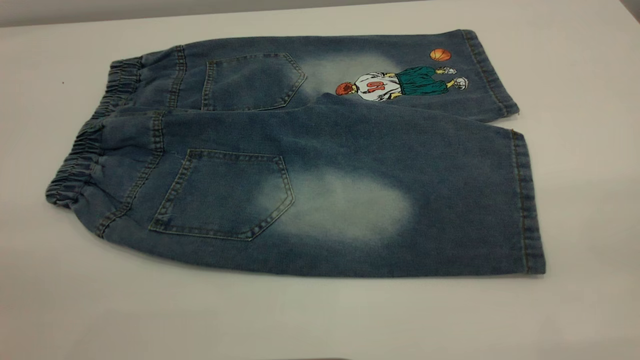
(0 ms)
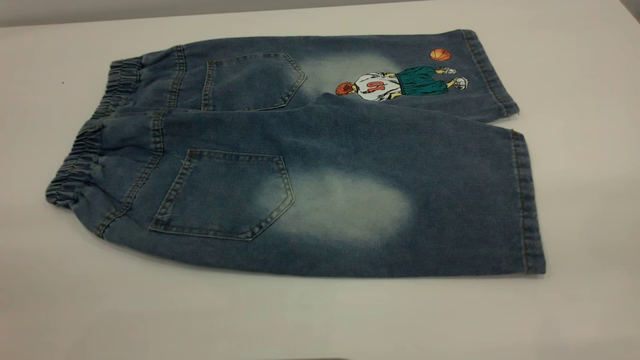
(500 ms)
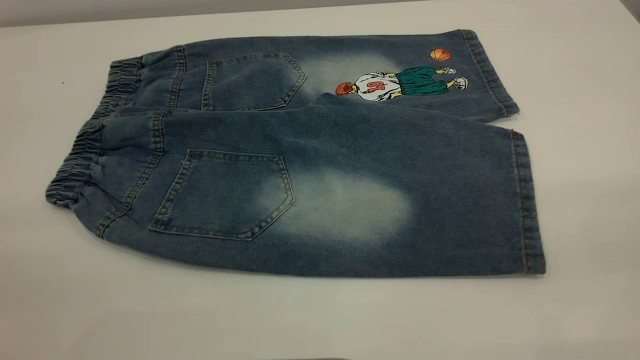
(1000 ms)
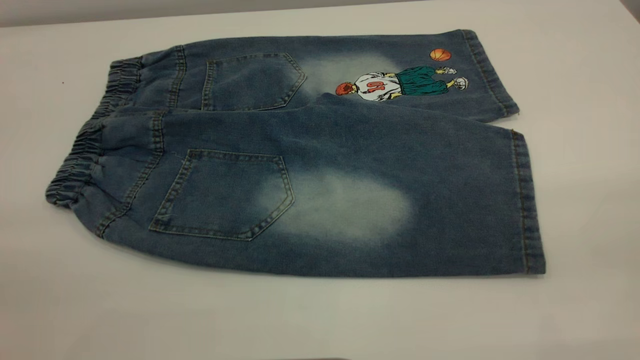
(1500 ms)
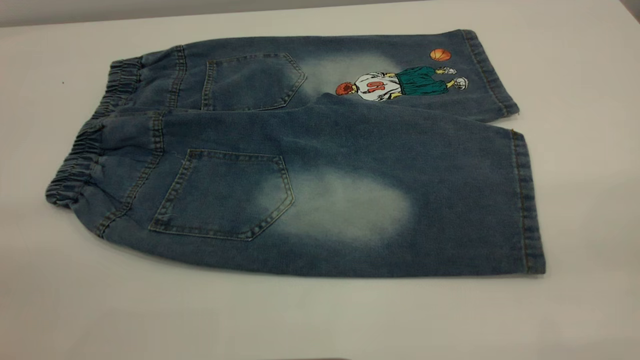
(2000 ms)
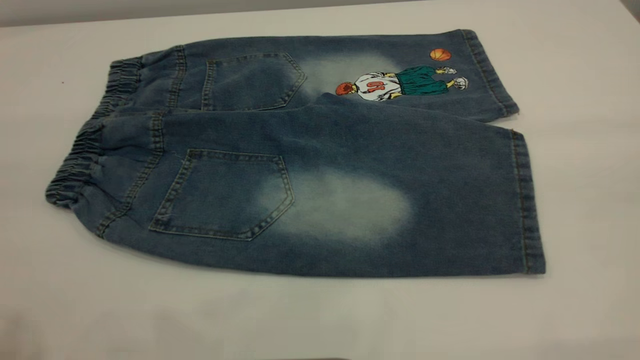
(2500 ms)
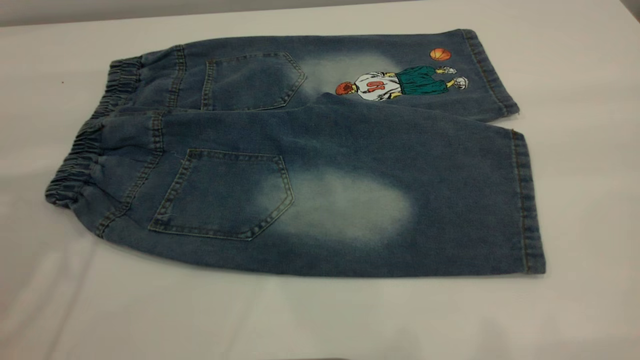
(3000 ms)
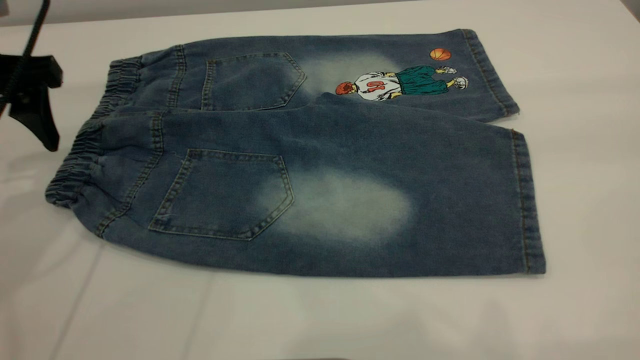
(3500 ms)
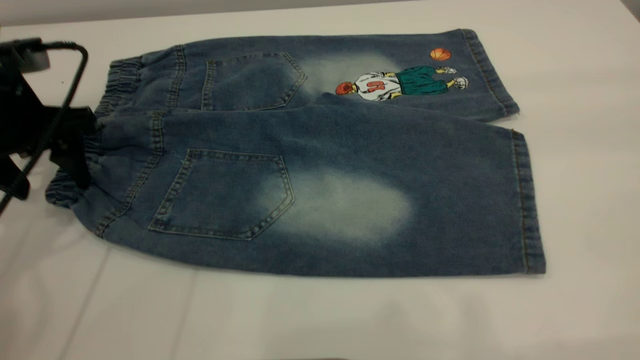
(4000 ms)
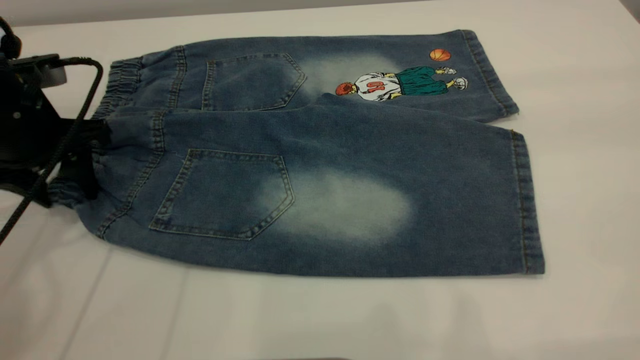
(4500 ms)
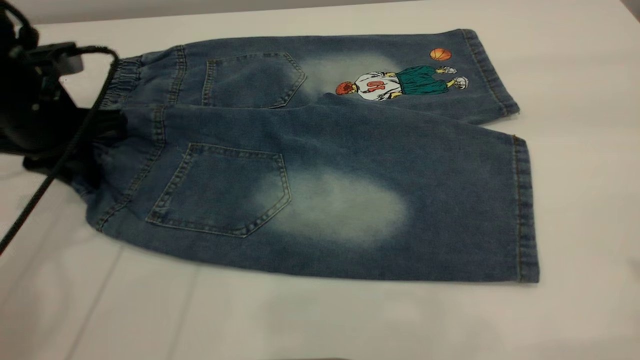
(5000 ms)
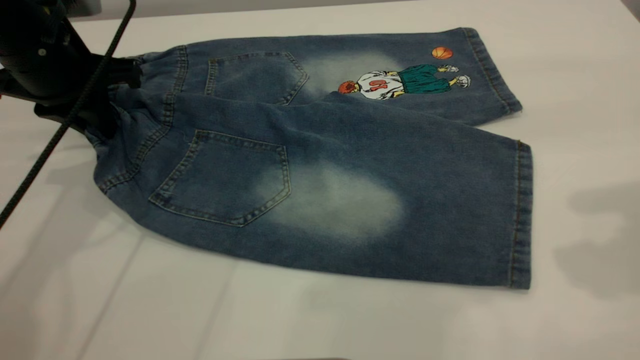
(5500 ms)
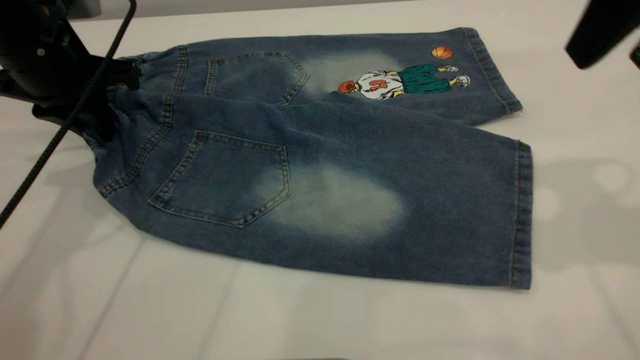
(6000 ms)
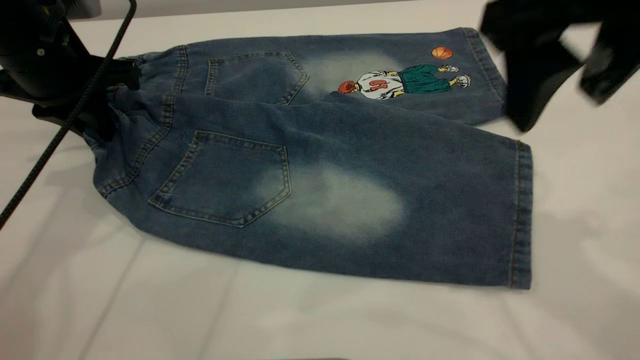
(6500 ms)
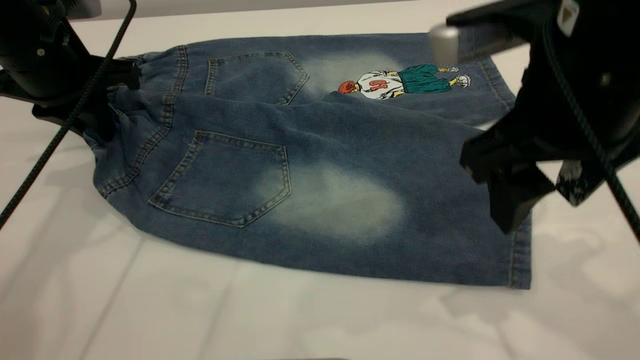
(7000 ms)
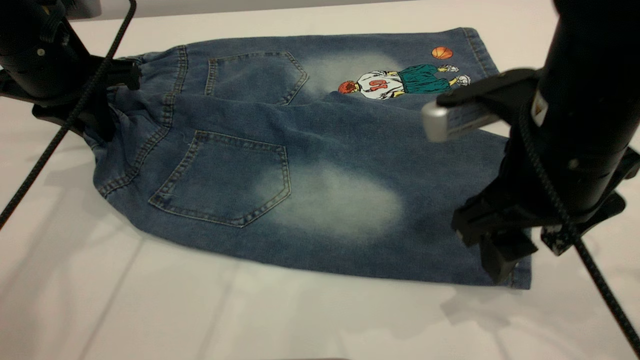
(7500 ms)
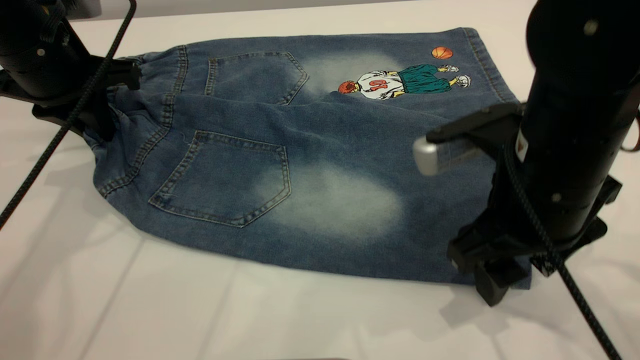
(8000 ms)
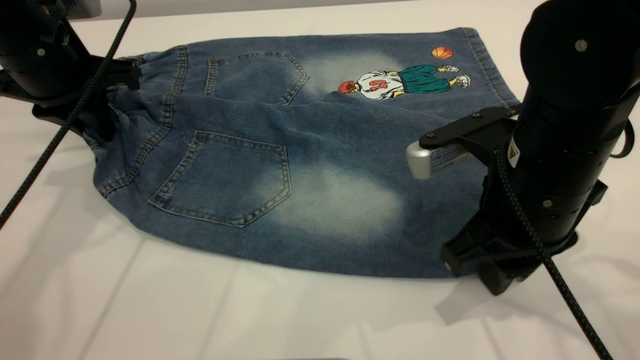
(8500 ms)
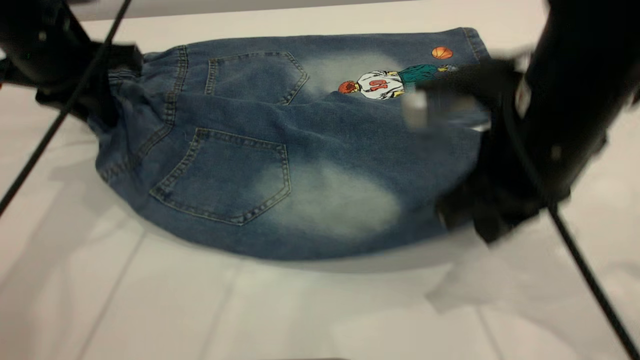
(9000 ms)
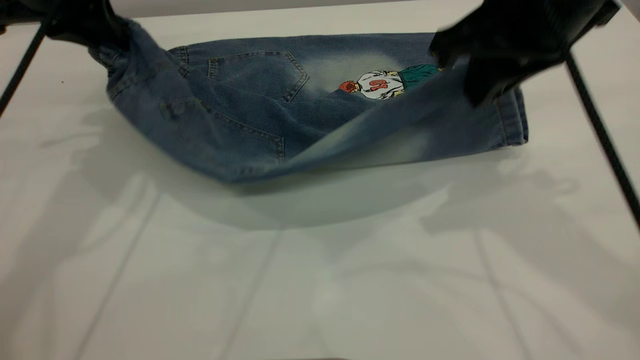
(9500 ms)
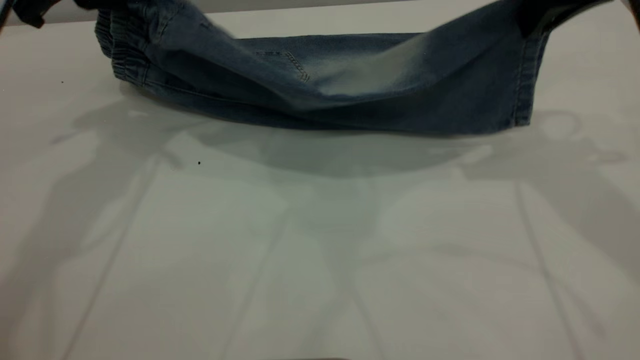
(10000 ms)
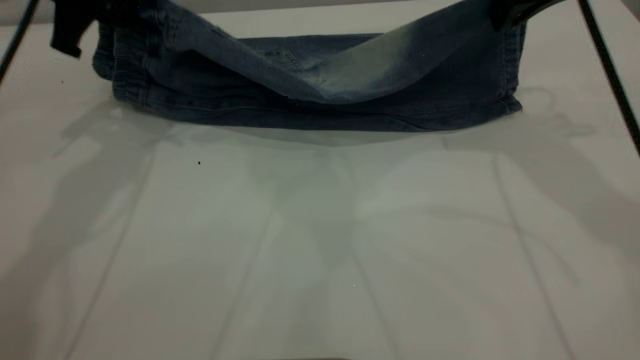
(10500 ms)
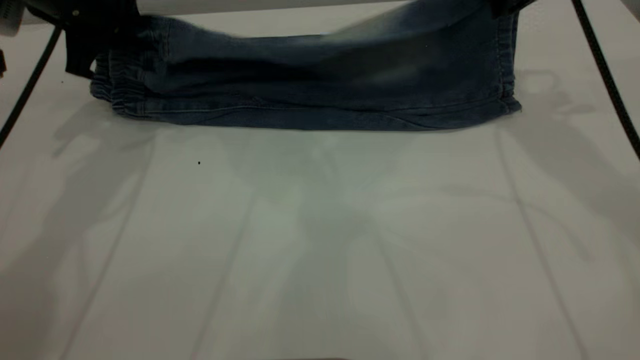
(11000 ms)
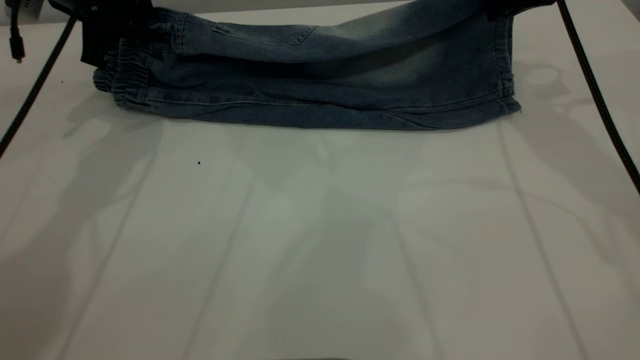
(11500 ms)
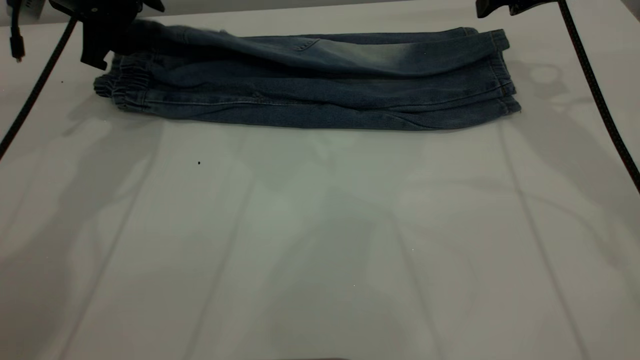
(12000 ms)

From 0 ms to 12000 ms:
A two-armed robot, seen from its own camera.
From 2000 ms to 4000 ms: The left gripper goes approximately 40 cm forward and downward.
From 4000 ms to 6000 ms: The left gripper shifts by about 5 cm, and closes its fingers. The right gripper shifts some 20 cm forward, downward and to the left.
From 6000 ms to 8000 ms: The right gripper heads downward and to the left, covering some 20 cm.
From 8000 ms to 10000 ms: The right gripper heads upward, forward and to the right, covering some 20 cm, and closes, while the left gripper shifts about 10 cm upward.
From 10000 ms to 12000 ms: The left gripper moves downward and forward, about 10 cm, and opens up. Meanwhile the right gripper shifts roughly 10 cm forward and downward, and opens up.

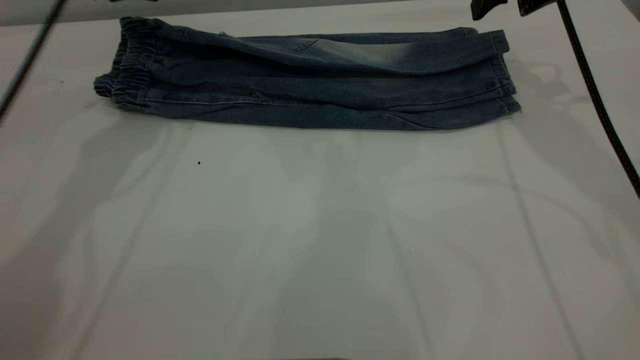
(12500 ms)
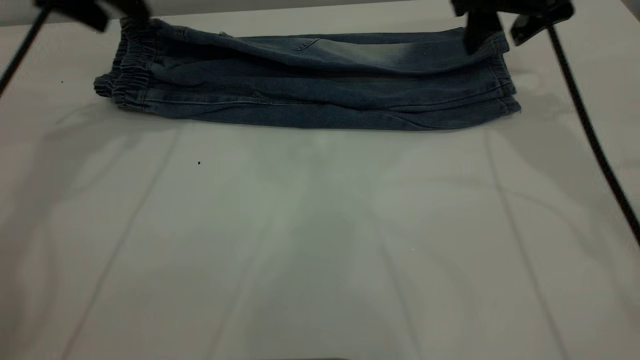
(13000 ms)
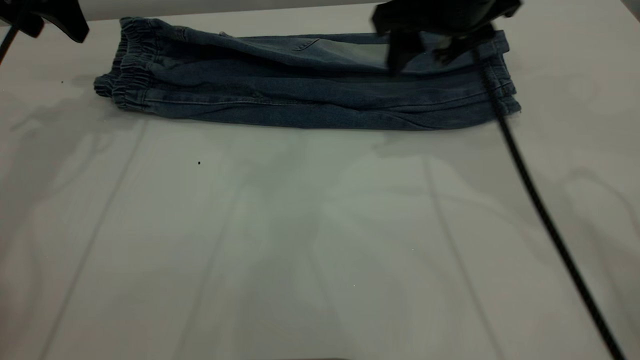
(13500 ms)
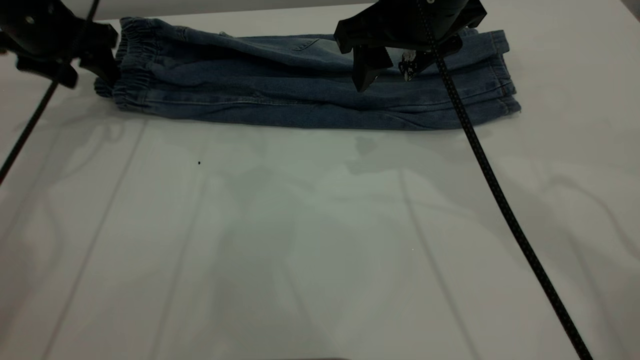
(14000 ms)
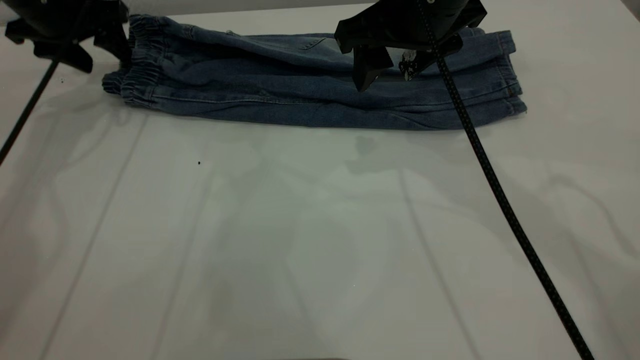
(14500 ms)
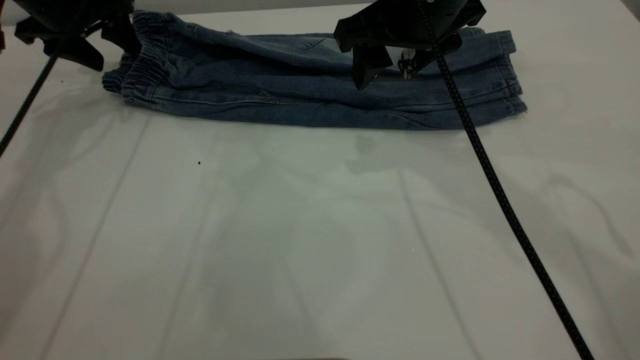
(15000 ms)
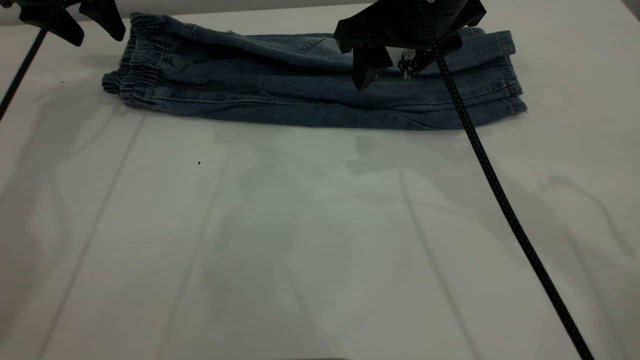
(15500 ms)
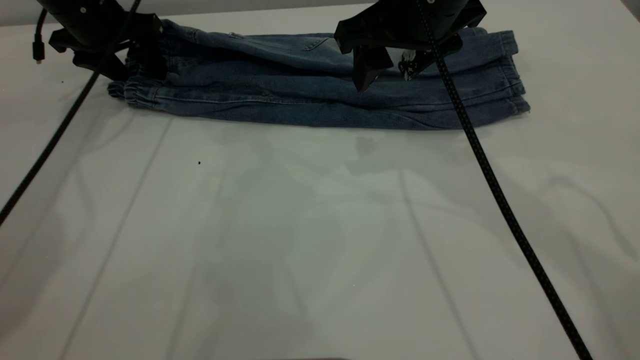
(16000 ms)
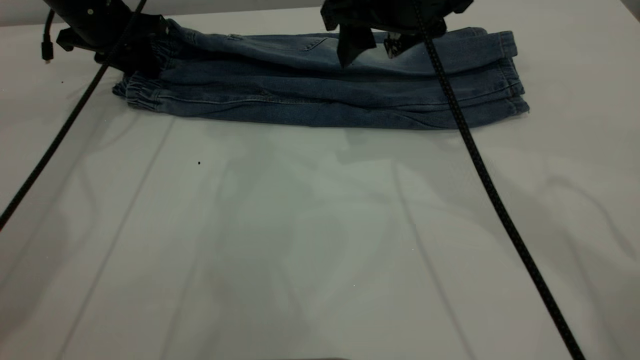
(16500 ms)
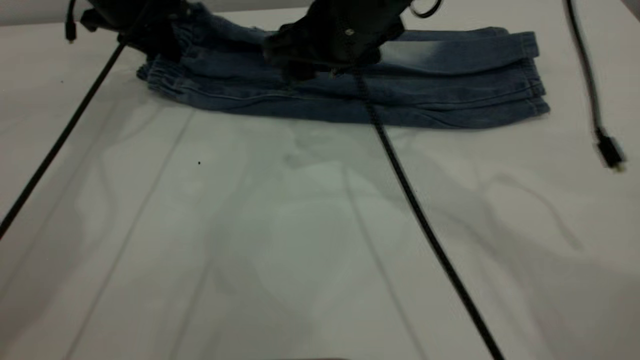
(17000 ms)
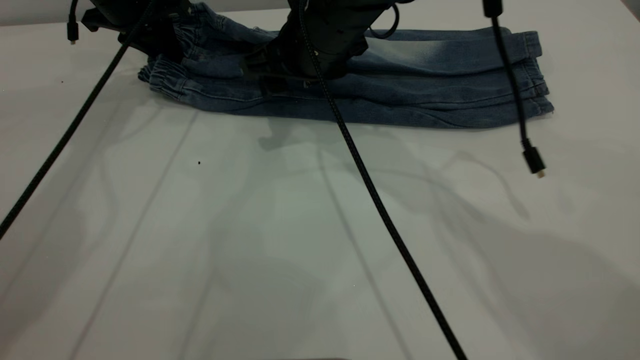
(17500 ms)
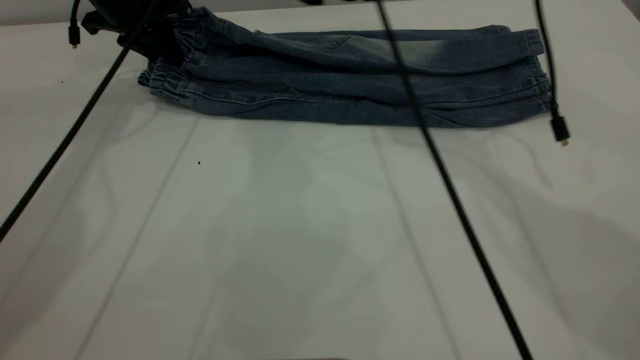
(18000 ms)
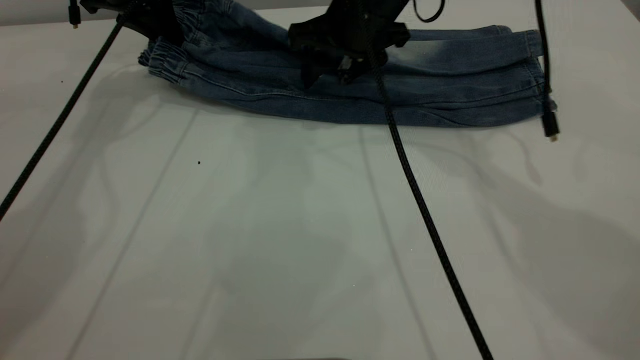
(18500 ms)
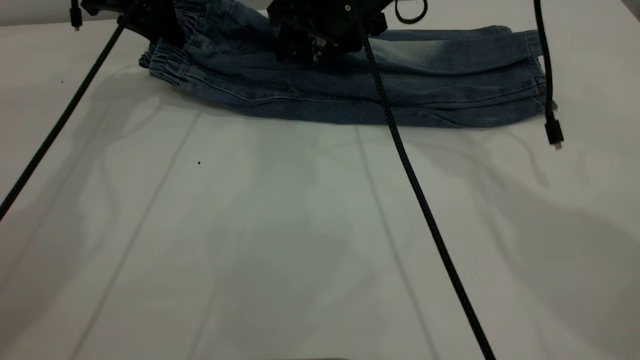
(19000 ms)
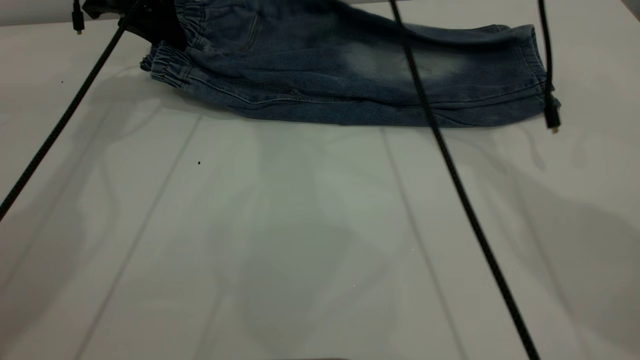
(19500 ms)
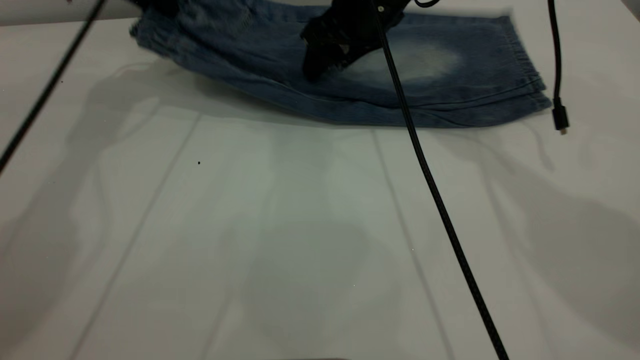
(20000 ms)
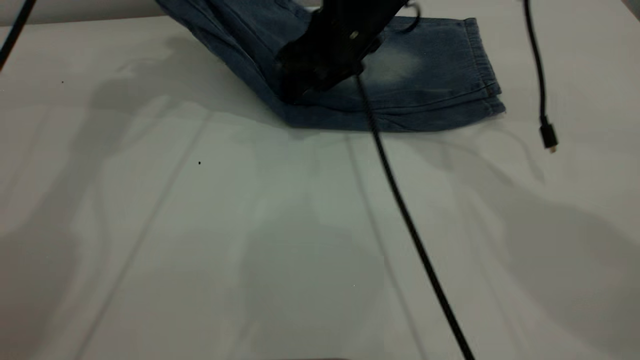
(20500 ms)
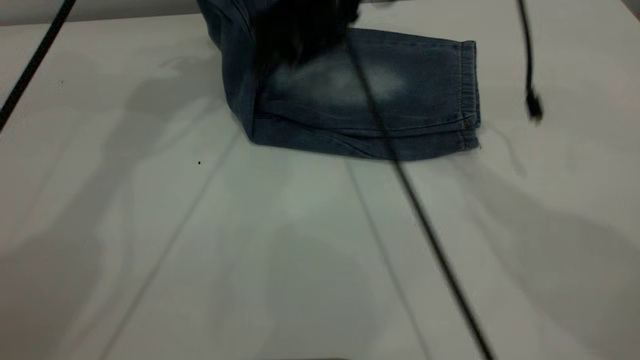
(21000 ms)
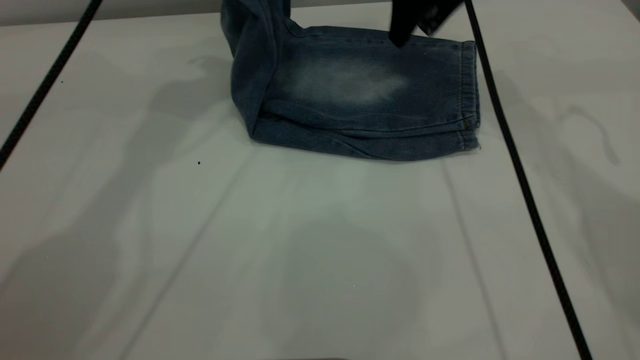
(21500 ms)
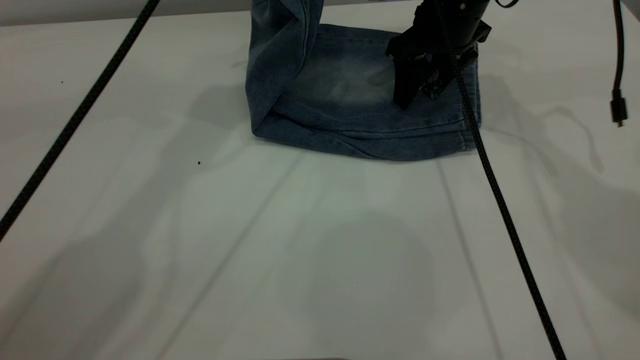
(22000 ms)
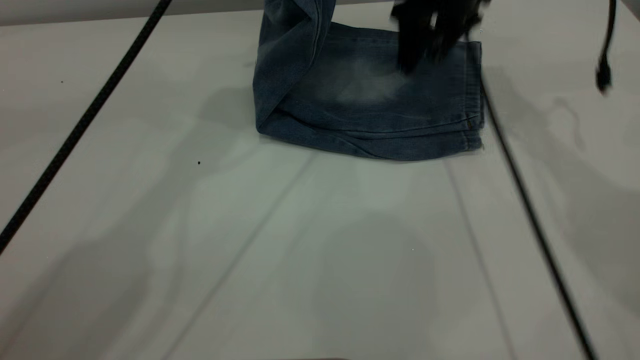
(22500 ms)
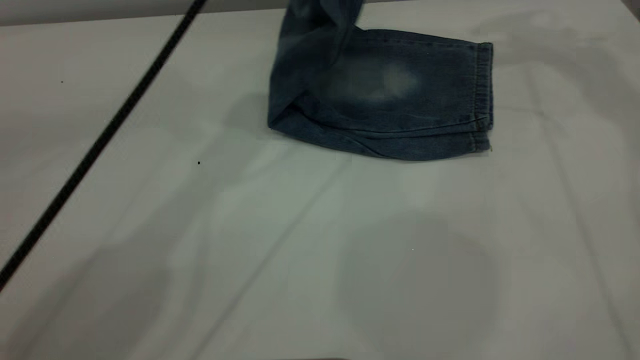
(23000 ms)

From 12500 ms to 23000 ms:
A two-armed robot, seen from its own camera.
From 12500 ms to 14500 ms: The right gripper is displaced to the left and backward by roughly 15 cm; the left gripper heads to the left and downward, covering about 10 cm.
From 14500 ms to 16500 ms: The left gripper shifts by about 5 cm, and closes up.
From 16500 ms to 19000 ms: The right gripper is displaced forward and downward by some 10 cm, while the left gripper changes place by about 5 cm.
From 19000 ms to 21000 ms: The left gripper is displaced upward and to the right by roughly 15 cm; the right gripper ends up about 5 cm from where it was.
From 21000 ms to 23000 ms: The right gripper goes approximately 30 cm to the right and upward. The left gripper is displaced to the right by approximately 15 cm.
